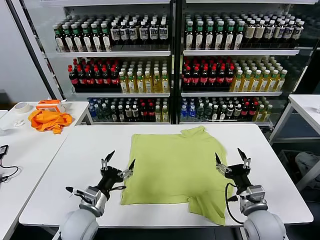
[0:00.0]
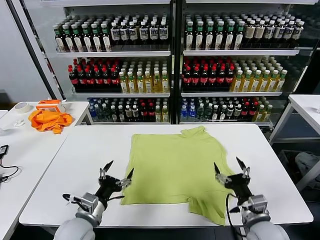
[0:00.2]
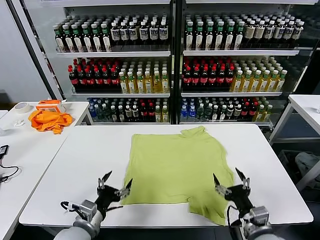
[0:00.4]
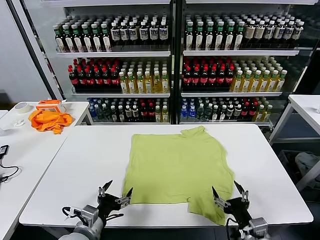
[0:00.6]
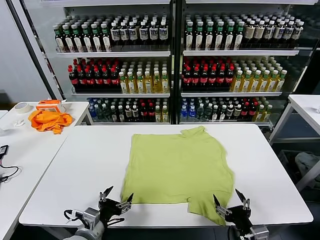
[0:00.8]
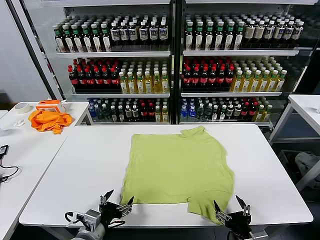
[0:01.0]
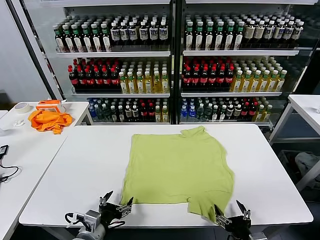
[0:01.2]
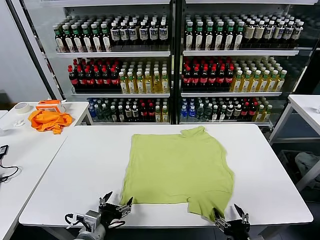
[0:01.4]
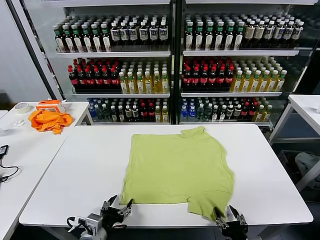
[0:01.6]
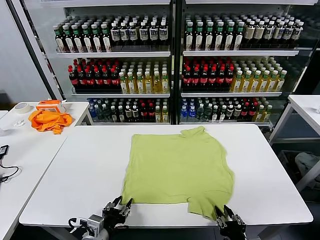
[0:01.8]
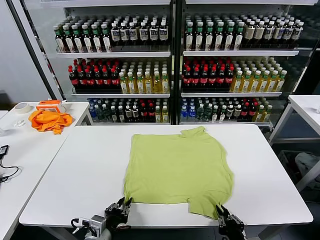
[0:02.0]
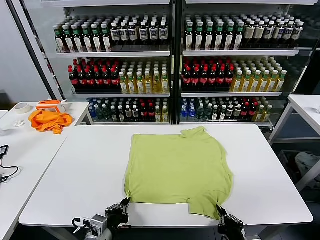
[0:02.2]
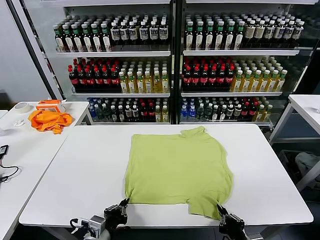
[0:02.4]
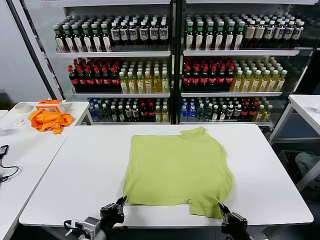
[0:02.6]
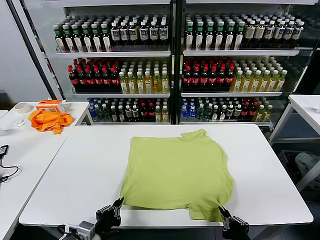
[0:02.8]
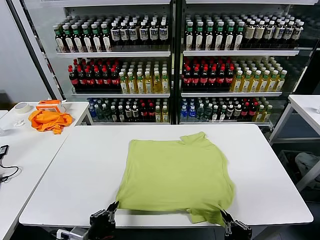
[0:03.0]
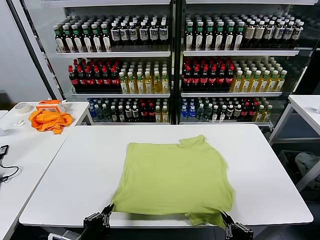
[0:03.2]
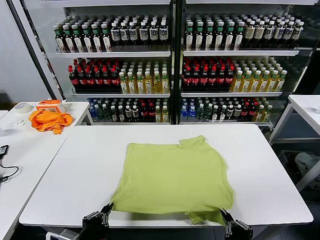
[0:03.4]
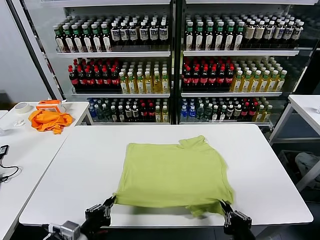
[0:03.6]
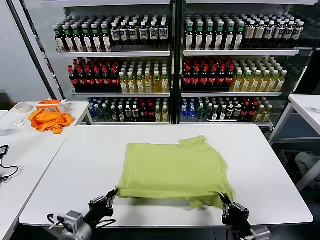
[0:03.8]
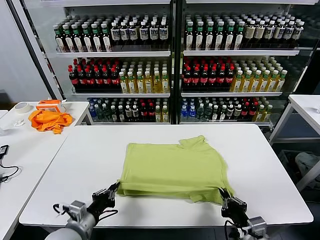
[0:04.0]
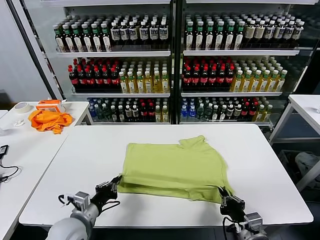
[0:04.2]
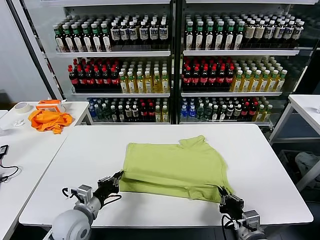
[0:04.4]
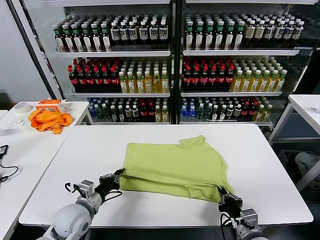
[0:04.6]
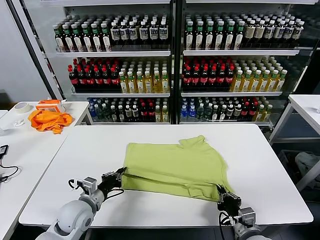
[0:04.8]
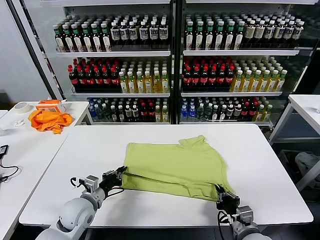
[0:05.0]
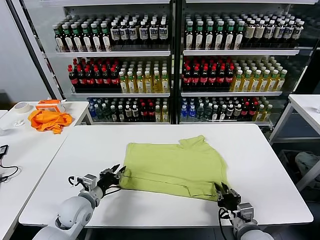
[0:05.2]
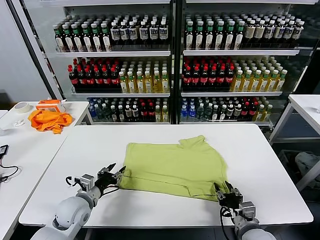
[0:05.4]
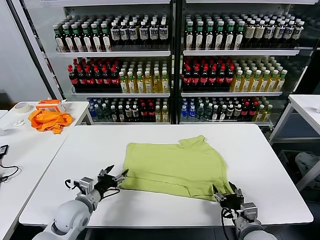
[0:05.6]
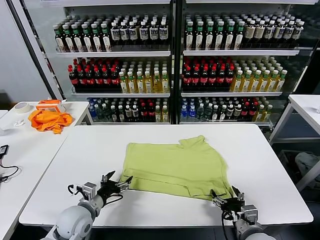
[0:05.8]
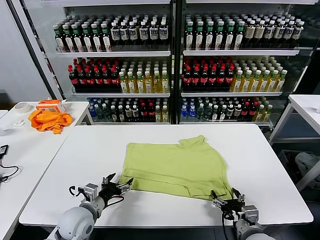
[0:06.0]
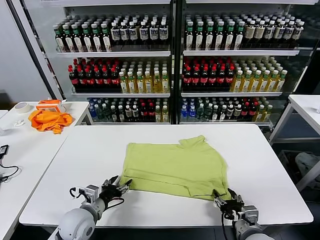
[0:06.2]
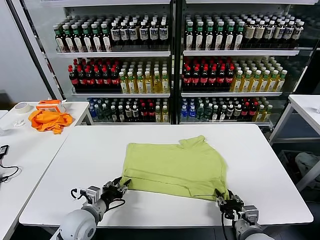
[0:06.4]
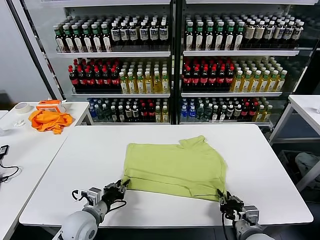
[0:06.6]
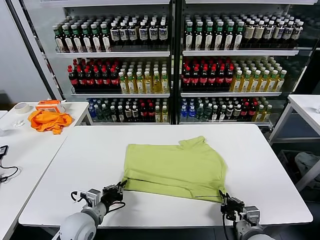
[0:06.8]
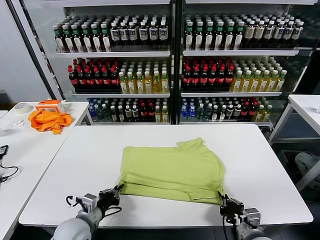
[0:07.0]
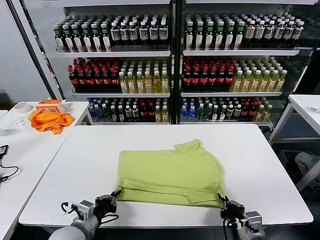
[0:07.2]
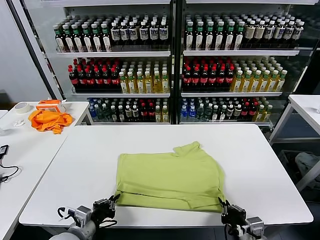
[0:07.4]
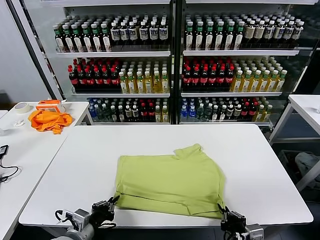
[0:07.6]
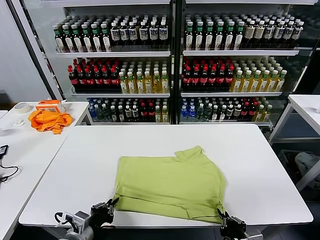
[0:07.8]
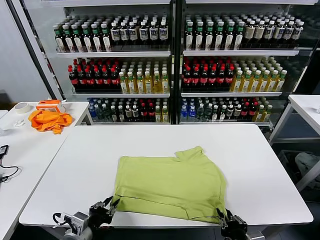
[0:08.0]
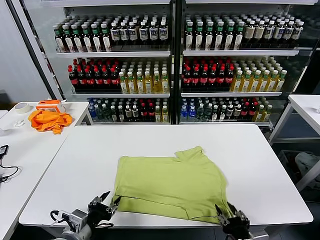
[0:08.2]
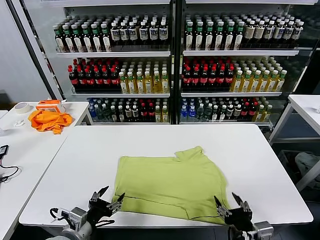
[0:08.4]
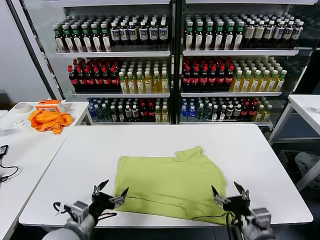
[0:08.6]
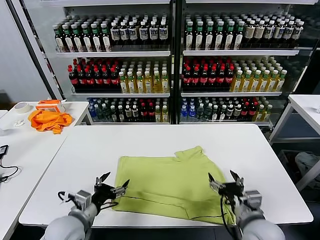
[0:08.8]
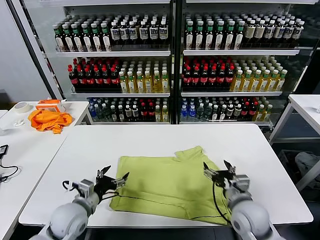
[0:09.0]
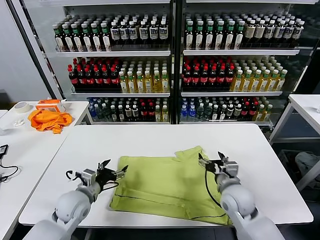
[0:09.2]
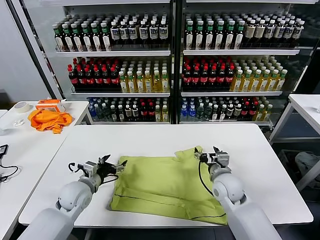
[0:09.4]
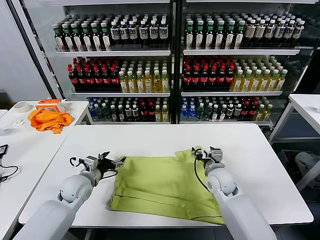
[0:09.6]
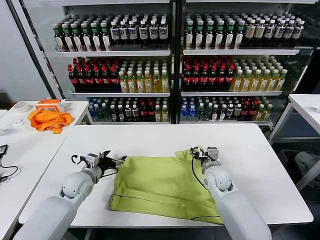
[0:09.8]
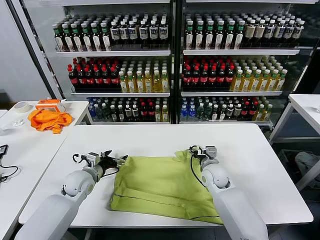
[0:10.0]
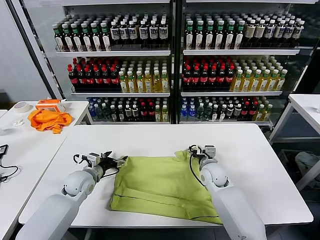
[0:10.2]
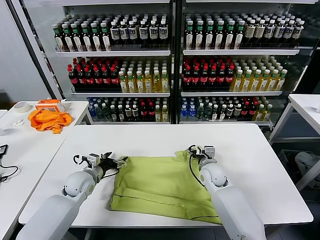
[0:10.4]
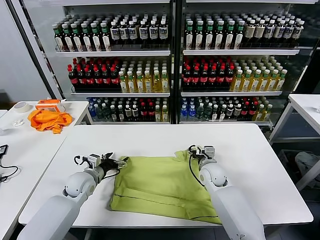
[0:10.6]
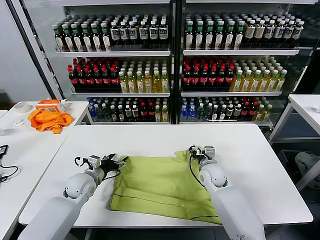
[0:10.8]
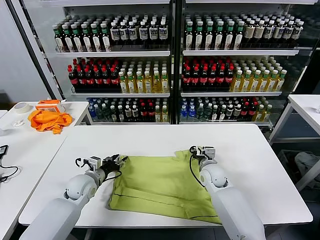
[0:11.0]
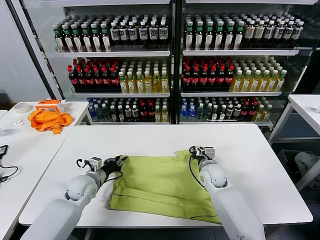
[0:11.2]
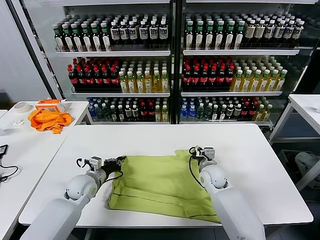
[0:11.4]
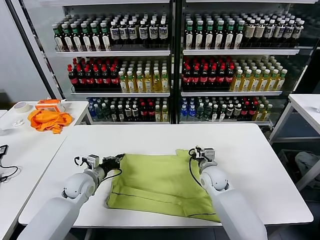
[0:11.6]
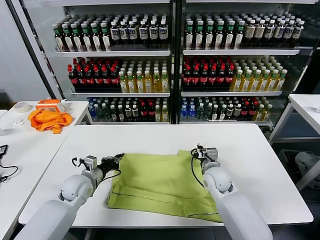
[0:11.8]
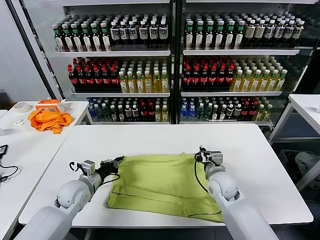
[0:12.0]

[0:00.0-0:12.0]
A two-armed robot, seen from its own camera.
Task of the whole recording: fold and organize the clothes.
Step, 0:00.0 to 0:02.2: use both grippers simultaneously to clamp the lower edge of the clothing fabric.
Step, 0:02.4 to 0:05.4: use both grippers to drag the lower edge of the fabric forward and fold it over the upper edge.
Step, 0:05.6 to 0:08.2: Drag the clothes downward with both gripper.
Step, 0:08.4 to 0:11.4: use both grippers simultaneously to clamp the upper edge of the clothing fabric.
0:01.6 to 0:03.0: The right gripper moves upward, some 5 cm, and closes its fingers, while the left gripper is displaced backward by about 5 cm, and closes.
0:03.0 to 0:04.4: Both grippers travel together forward, roughly 10 cm.
0:04.4 to 0:06.0: The right gripper opens its fingers; the left gripper opens.
0:06.0 to 0:07.6: The grippers both shift backward by some 10 cm. The right gripper closes. Meanwhile the left gripper closes its fingers.
0:07.6 to 0:09.0: Both grippers travel together forward, some 10 cm. The right gripper opens up. Meanwhile the left gripper opens its fingers.
0:09.0 to 0:10.4: Both grippers move forward, roughly 15 cm.
0:10.4 to 0:12.0: The right gripper heads backward, covering approximately 5 cm, and closes its fingers, while the left gripper closes its fingers.

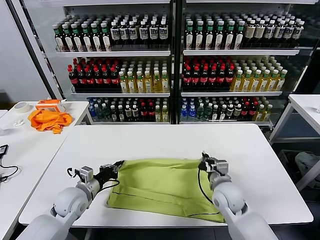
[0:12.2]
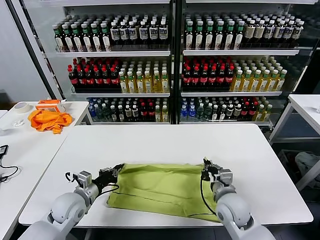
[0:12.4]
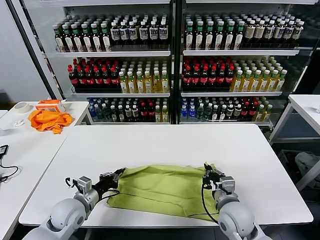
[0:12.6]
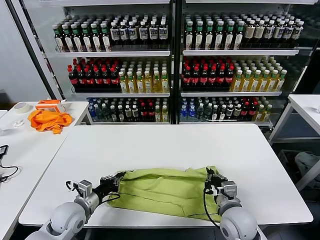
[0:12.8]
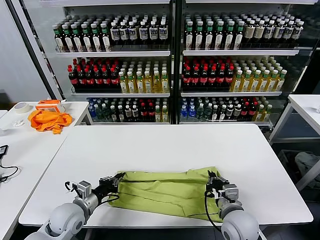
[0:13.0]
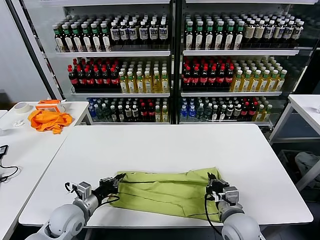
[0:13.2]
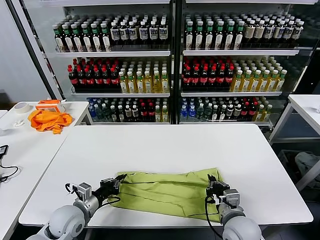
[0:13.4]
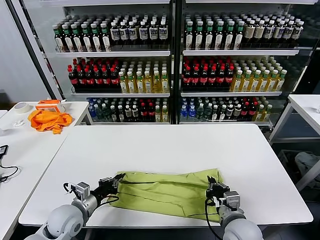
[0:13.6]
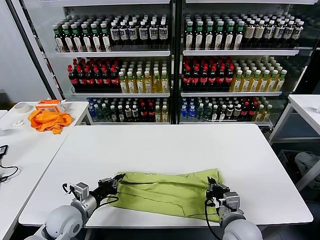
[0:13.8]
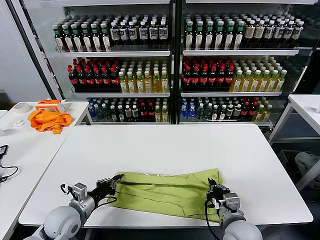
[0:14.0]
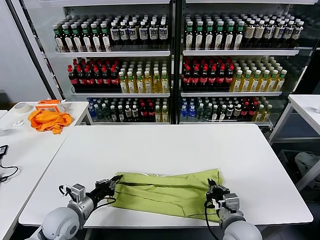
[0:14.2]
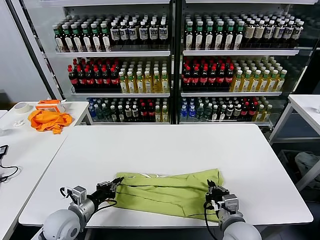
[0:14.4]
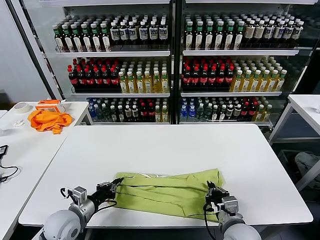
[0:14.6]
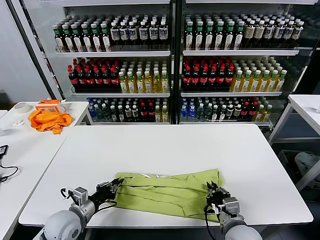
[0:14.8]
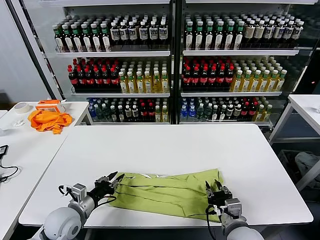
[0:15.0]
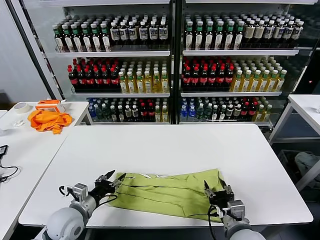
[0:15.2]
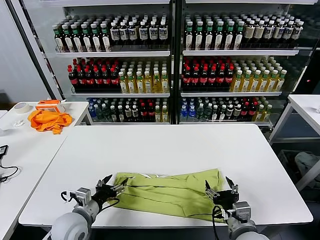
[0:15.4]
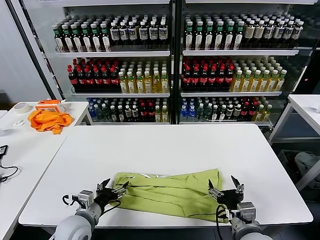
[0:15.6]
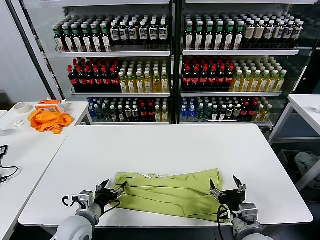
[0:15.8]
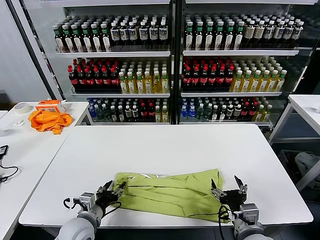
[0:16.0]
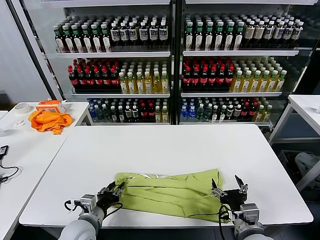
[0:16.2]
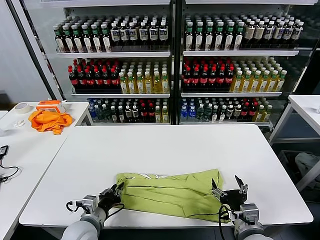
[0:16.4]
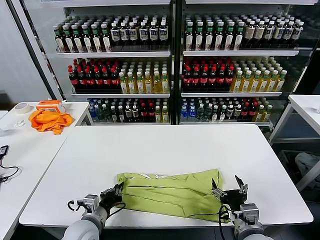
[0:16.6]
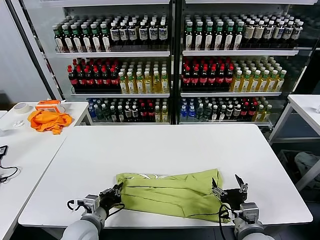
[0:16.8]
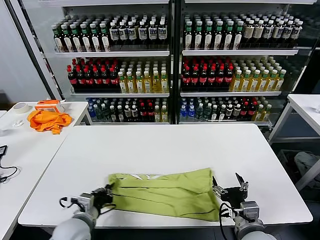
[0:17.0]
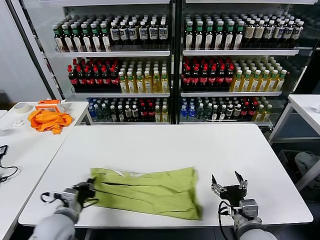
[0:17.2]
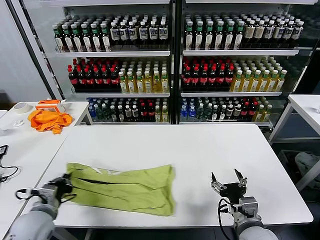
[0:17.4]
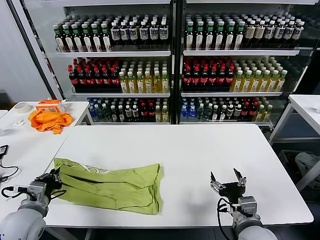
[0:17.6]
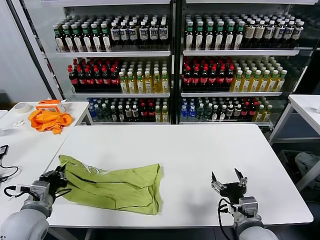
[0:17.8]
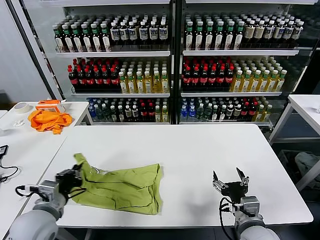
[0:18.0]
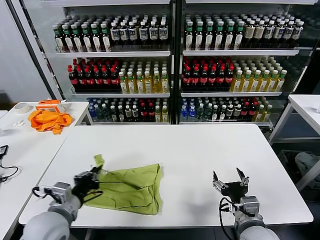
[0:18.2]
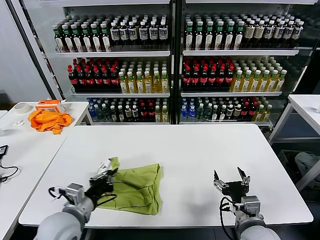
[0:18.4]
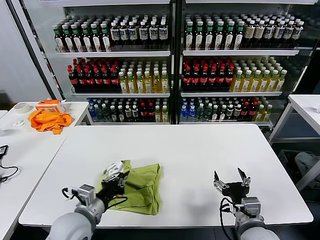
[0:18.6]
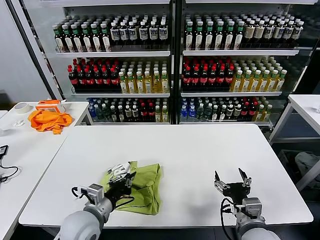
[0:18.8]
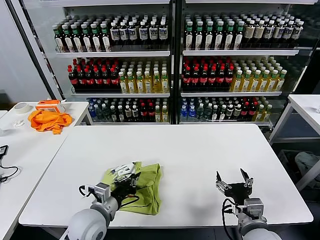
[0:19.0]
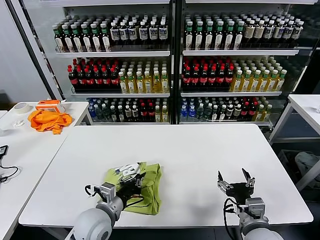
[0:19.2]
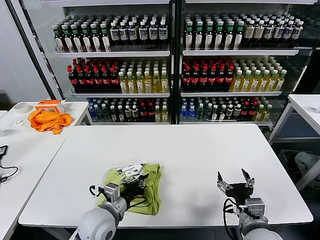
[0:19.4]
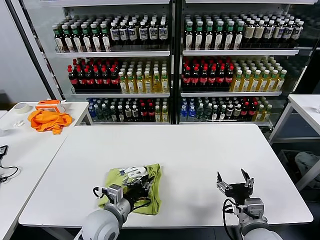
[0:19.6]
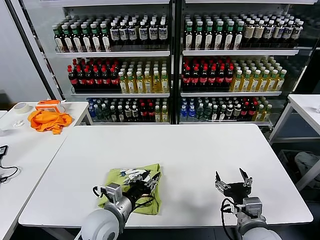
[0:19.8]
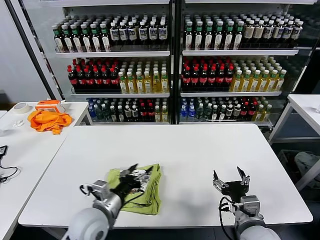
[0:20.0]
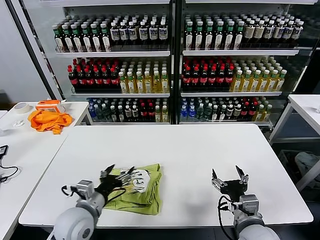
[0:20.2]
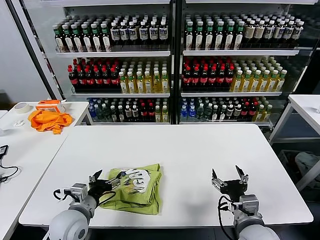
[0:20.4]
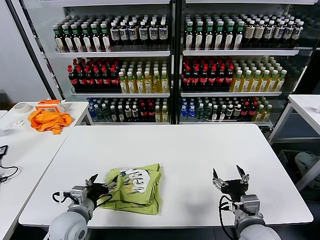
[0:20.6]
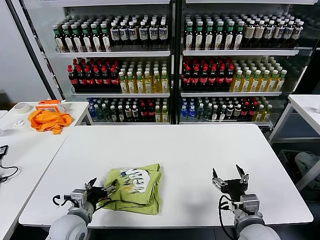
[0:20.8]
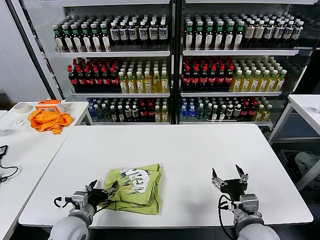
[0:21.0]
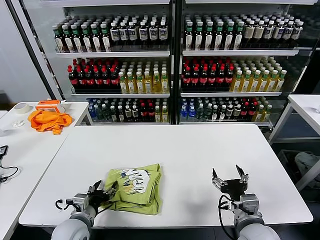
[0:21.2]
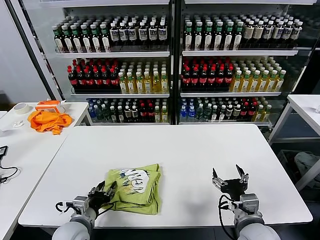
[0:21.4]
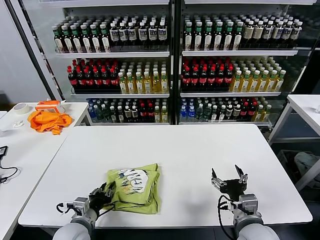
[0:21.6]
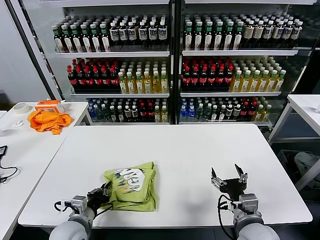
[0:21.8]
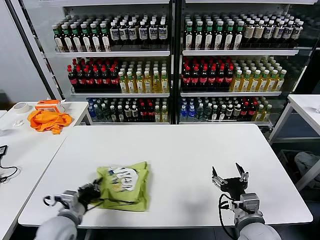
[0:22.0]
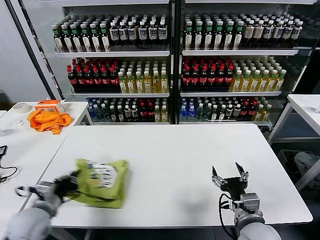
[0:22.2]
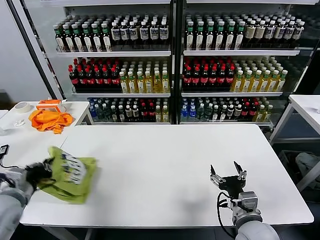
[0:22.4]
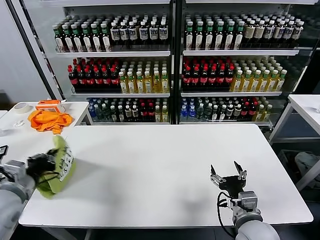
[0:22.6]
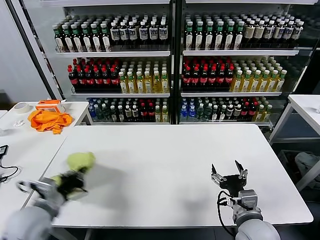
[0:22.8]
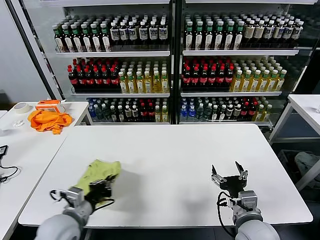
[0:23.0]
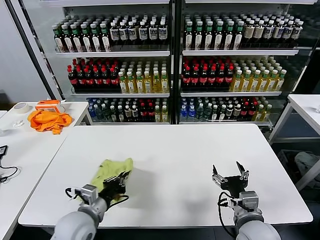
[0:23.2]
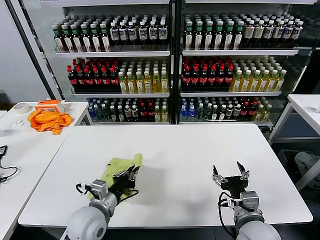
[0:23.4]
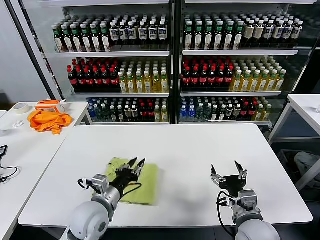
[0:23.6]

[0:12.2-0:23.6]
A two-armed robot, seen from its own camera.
Task of the whole recording: fold and organize the clothes.
Step, 0:12.2 to 0:14.8: use both grippers to drag the upper edge of the fabric backward and fold it over the lower edge.
Step, 0:15.2 to 0:16.6: use the left gripper to clamp the left edge of the fabric.
Step, 0:16.8 to 0:19.8: use the left gripper to drag the left edge of the fabric to the left and folds it over the right edge.
Step, 0:20.0 to 0:23.6: Flip the folded clothes over with left gripper.
0:12.2 to 0:13.6: The right gripper travels backward by some 10 cm. Meanwhile the left gripper moves backward, roughly 5 cm.
0:13.6 to 0:15.0: The right gripper opens up; the left gripper opens its fingers.
0:15.0 to 0:16.4: The left gripper goes some 5 cm to the right, and opens and closes again. Meanwhile the right gripper opens.
0:16.4 to 0:17.8: The left gripper travels to the left and upward by roughly 15 cm.
0:17.8 to 0:19.4: The left gripper is displaced to the right by approximately 15 cm.
0:19.4 to 0:20.8: The left gripper is displaced to the left by some 10 cm, and opens up.
0:20.8 to 0:22.2: The left gripper goes about 10 cm to the left, and closes.
0:22.2 to 0:23.6: The left gripper moves to the right, approximately 15 cm.
